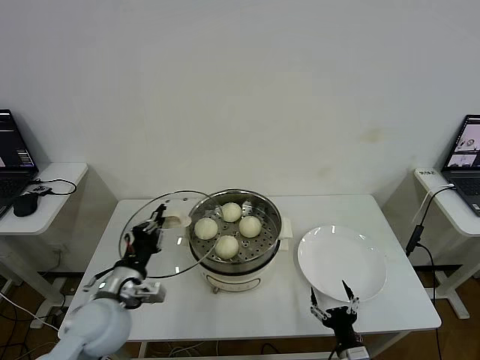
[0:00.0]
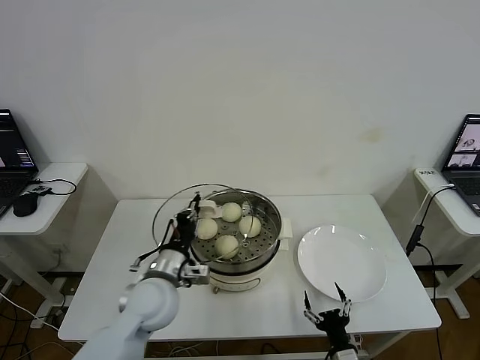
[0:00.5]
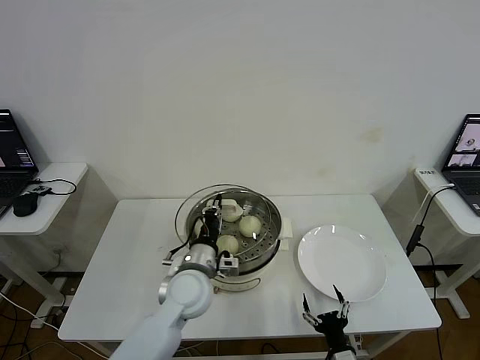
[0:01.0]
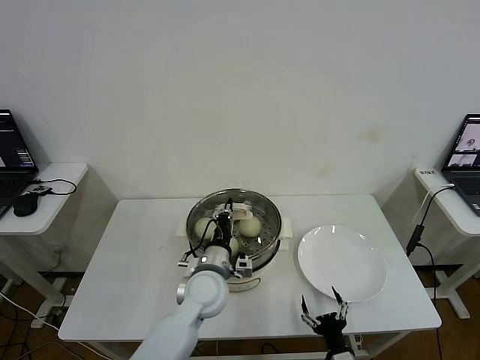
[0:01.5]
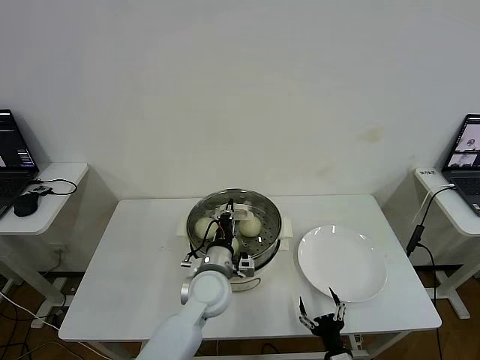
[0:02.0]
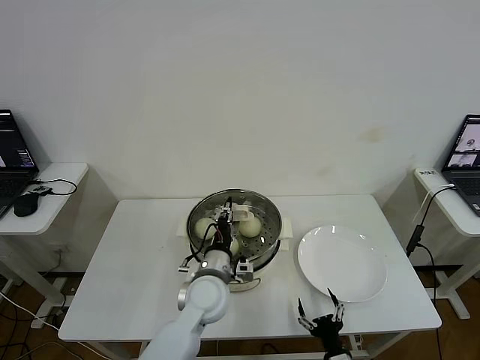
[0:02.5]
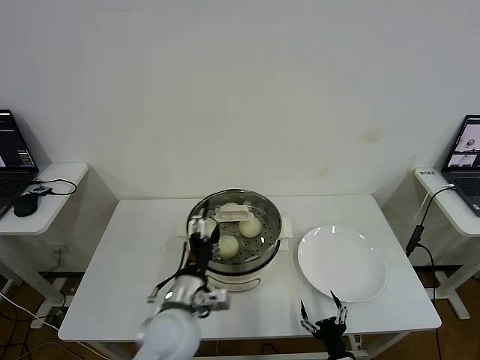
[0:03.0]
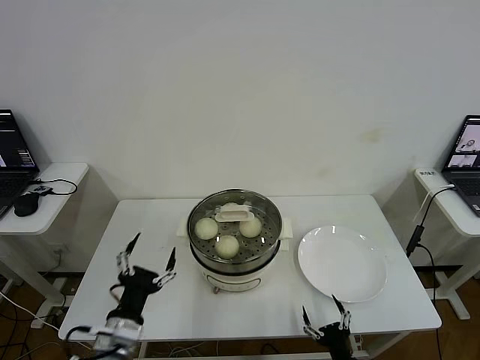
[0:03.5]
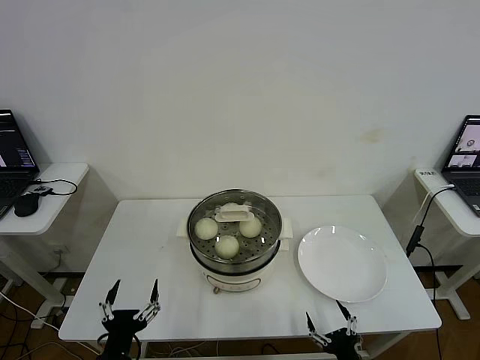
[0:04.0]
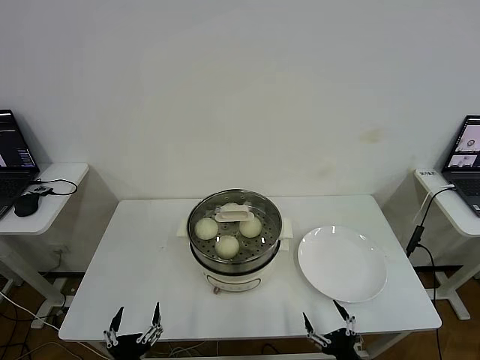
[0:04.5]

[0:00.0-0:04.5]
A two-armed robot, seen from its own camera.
Step, 0:00.0 to 0:02.5: Place the pot lid on the steamer with left gripper.
0:00.0 to 0:02.0: The left gripper moves to the right and forward, about 20 cm.
0:02.0 to 0:04.5: The left gripper travels backward and to the left by approximately 30 cm, and opens up. The right gripper goes approximately 5 cm upward.

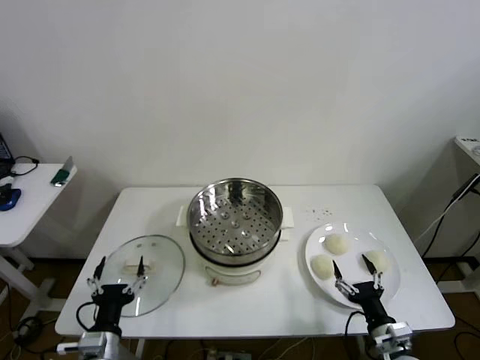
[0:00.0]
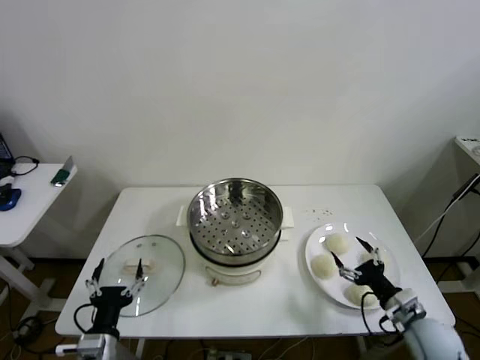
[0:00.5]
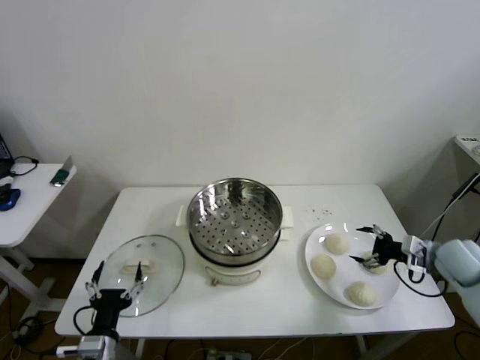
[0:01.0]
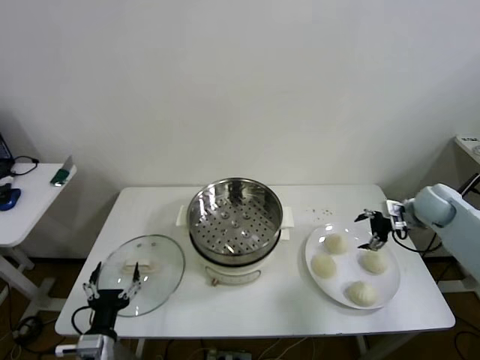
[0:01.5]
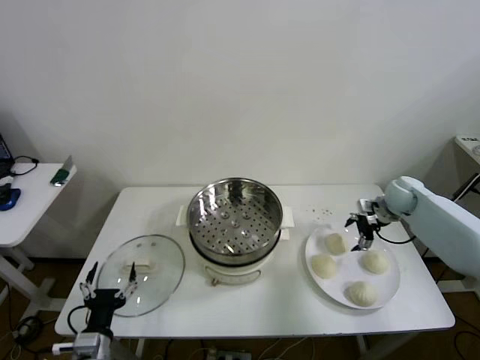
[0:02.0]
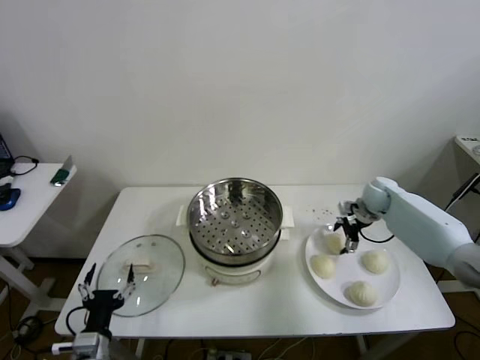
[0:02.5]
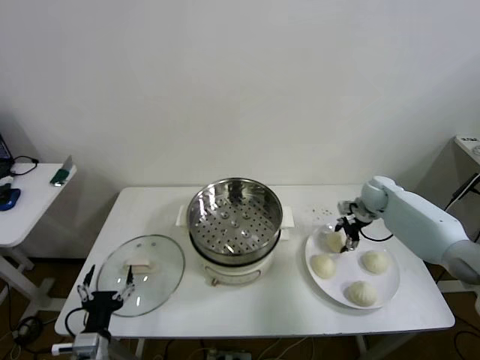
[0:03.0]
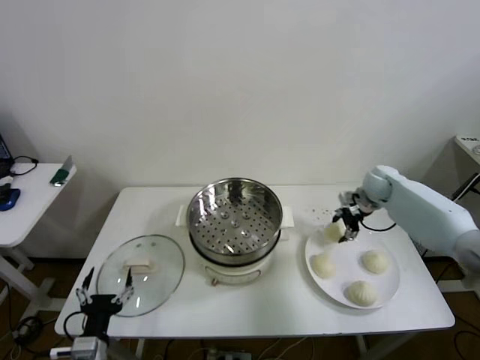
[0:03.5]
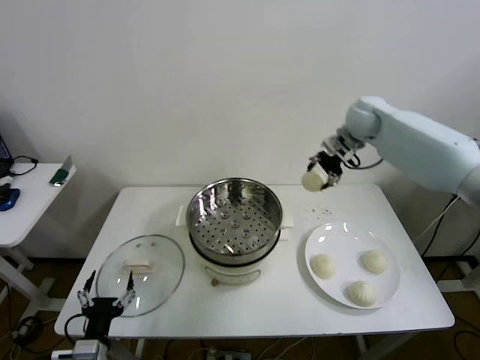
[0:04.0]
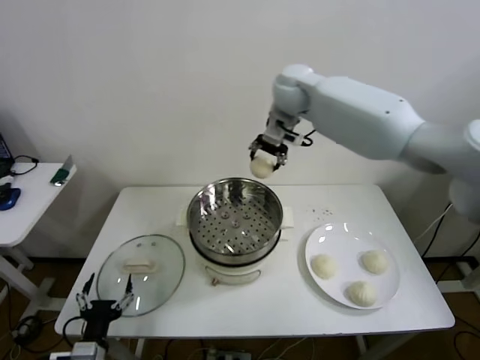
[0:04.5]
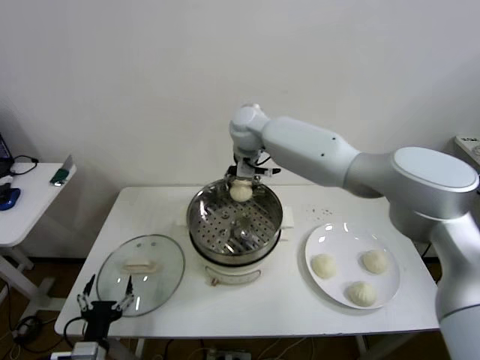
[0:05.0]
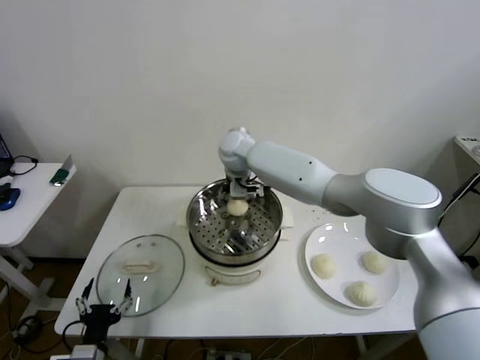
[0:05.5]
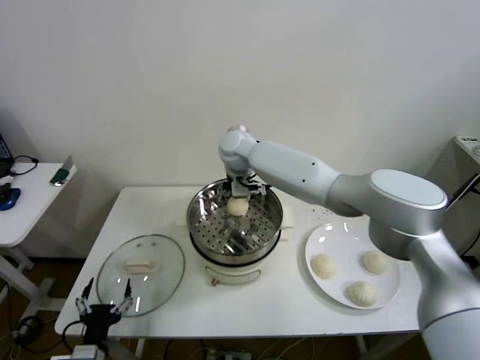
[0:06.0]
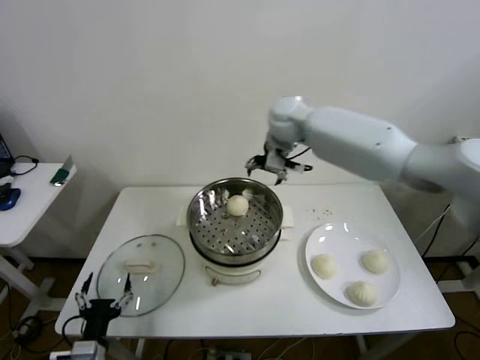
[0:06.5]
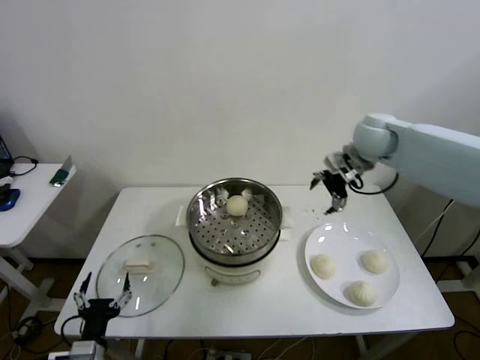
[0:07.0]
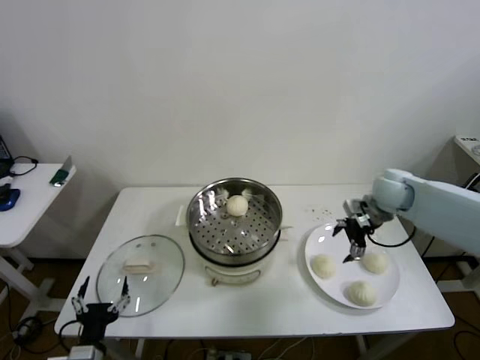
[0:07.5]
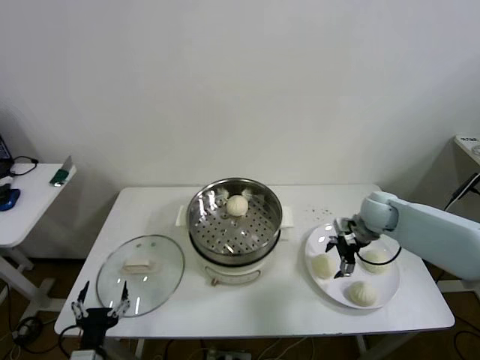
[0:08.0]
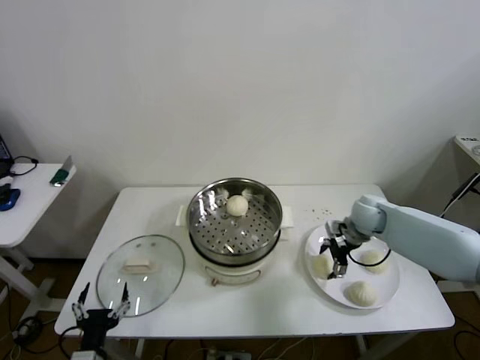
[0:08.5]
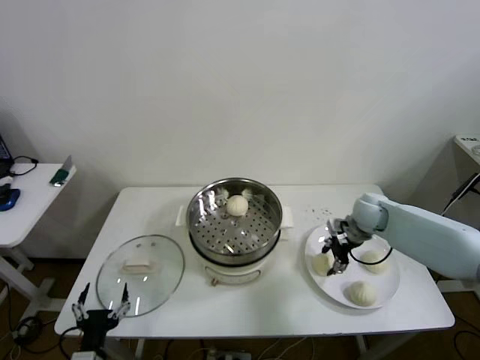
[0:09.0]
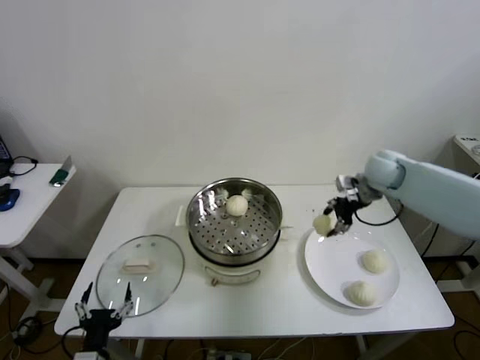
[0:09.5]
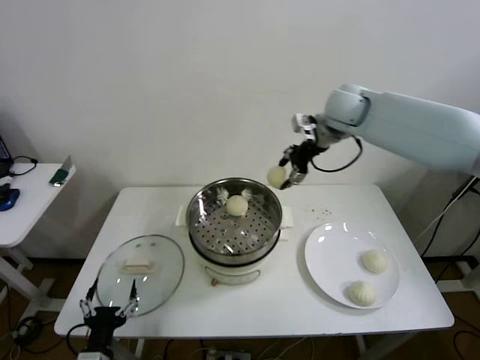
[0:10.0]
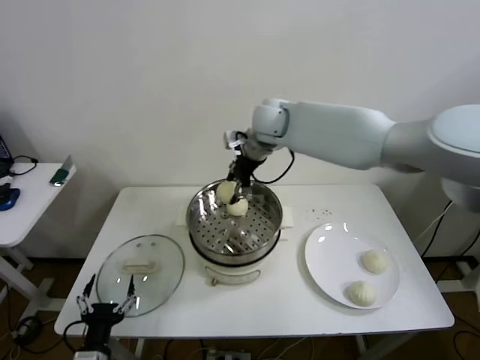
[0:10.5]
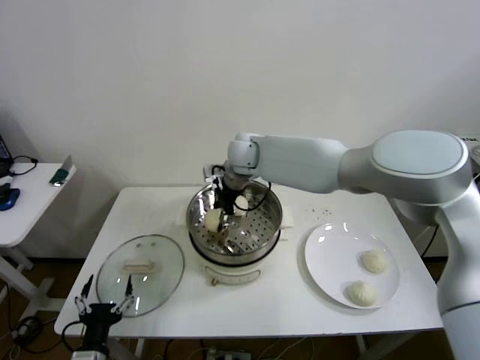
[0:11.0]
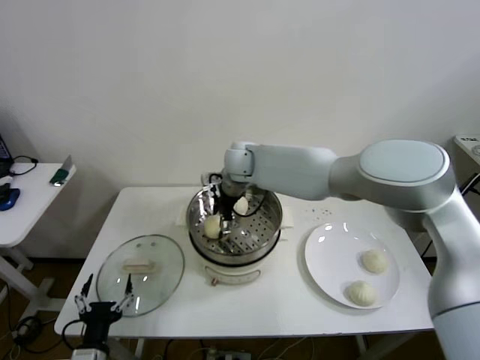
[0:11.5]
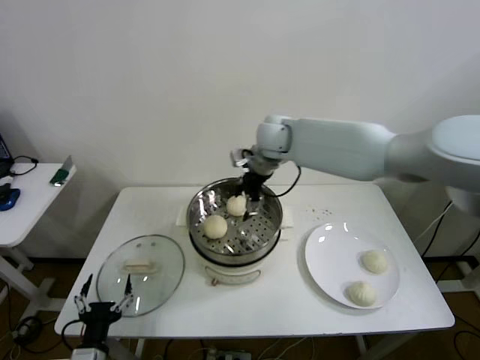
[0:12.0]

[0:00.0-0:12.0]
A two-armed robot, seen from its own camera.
Step, 0:00.0 to 0:03.0: Grasp the baozi in the plate with right gripper.
Step, 0:03.5 to 0:06.0: Place the baozi on the steamer with right gripper.
Step, 0:06.5 to 0:08.5: Grasp the baozi in the plate with right gripper.
Step, 0:09.5 to 0:11.5: Place the baozi on the steamer with right gripper.
0:02.0 to 0:04.0: The right gripper moves upward and to the left, roughly 25 cm, and closes.
0:04.0 to 0:06.0: The right gripper heads to the left, covering roughly 30 cm, and opens its fingers.
0:06.0 to 0:08.0: The right gripper heads to the right, covering about 35 cm.
0:08.0 to 0:10.0: The right gripper goes approximately 25 cm upward and to the left, and closes.
0:10.0 to 0:12.0: The right gripper shifts some 15 cm to the left and downward, and opens.

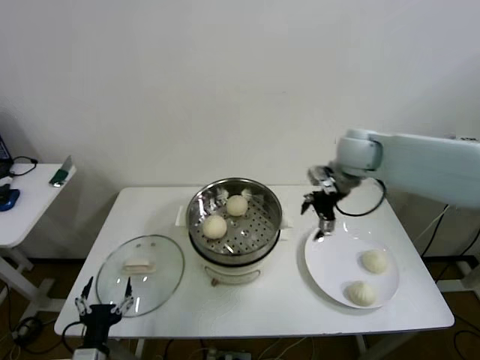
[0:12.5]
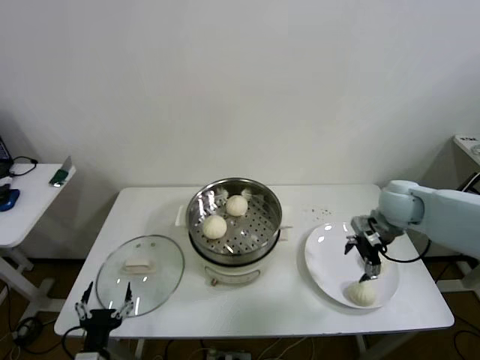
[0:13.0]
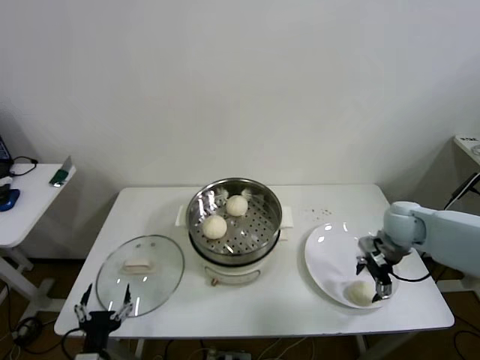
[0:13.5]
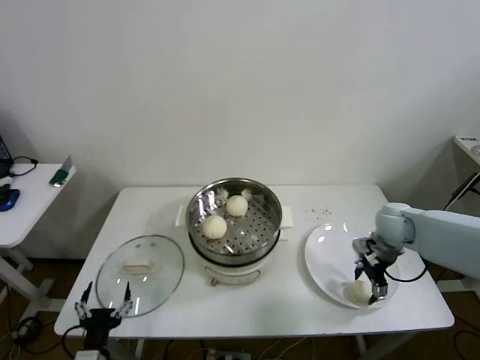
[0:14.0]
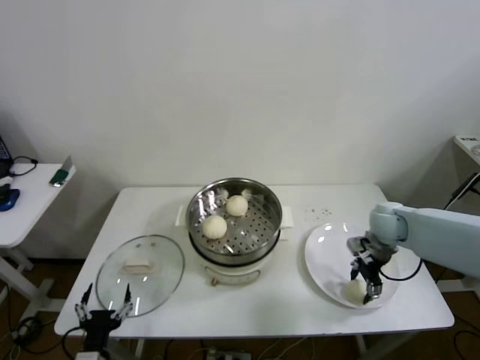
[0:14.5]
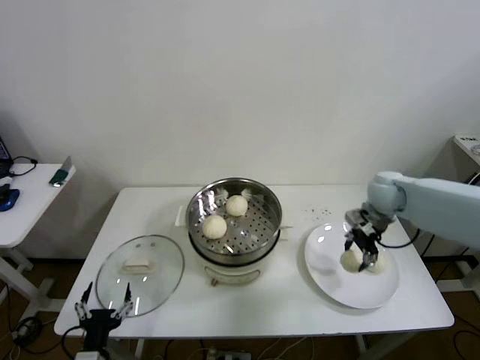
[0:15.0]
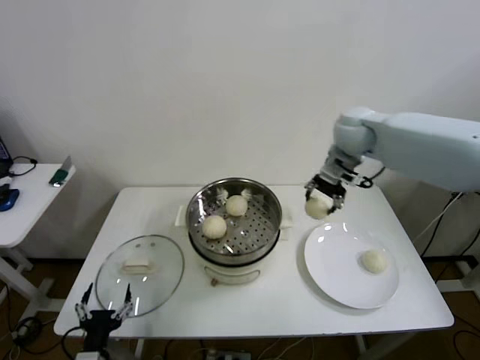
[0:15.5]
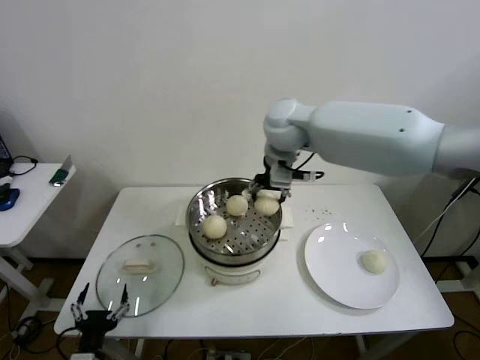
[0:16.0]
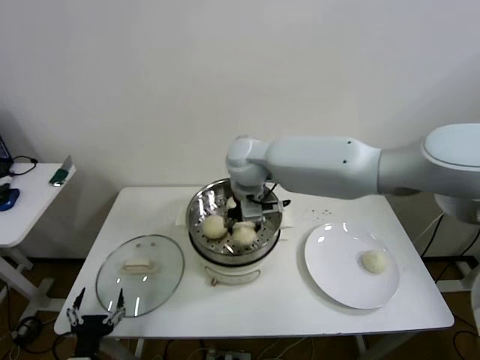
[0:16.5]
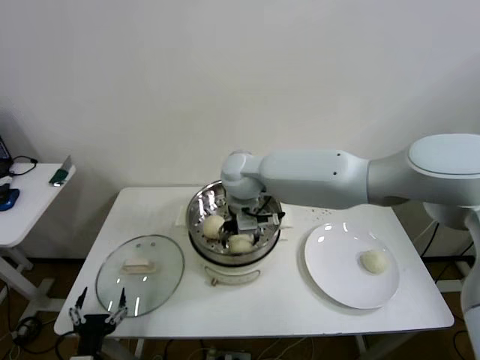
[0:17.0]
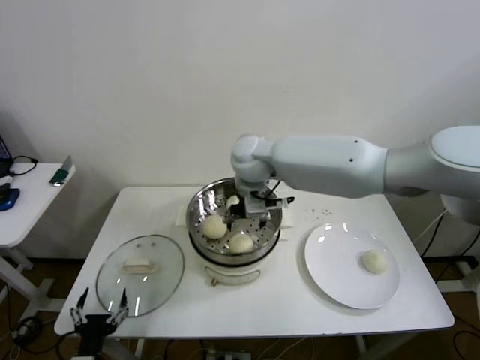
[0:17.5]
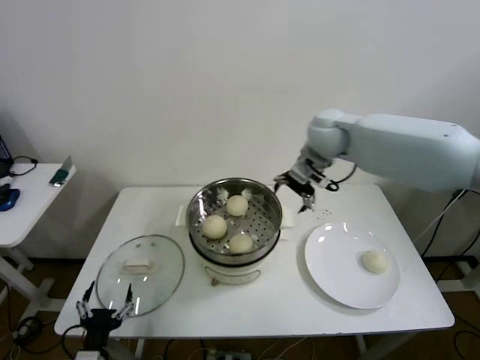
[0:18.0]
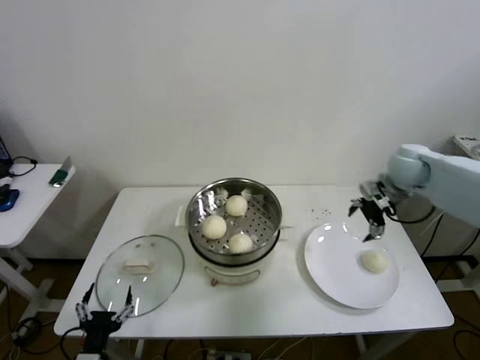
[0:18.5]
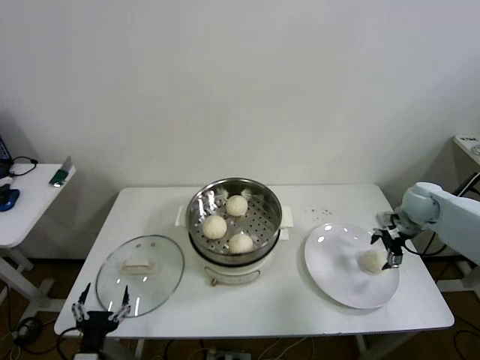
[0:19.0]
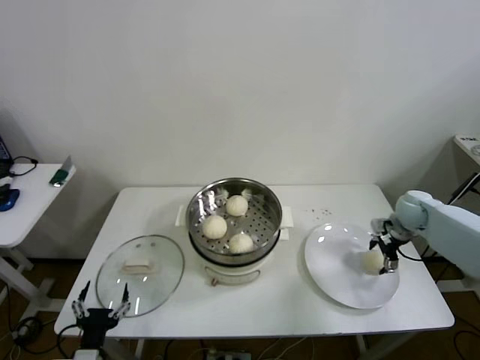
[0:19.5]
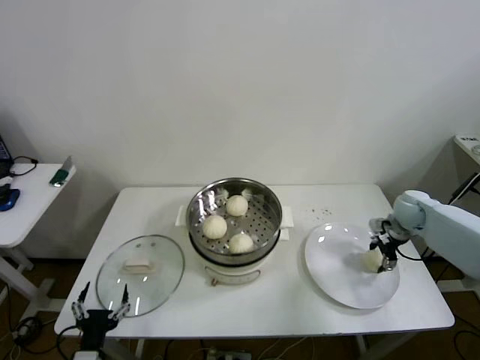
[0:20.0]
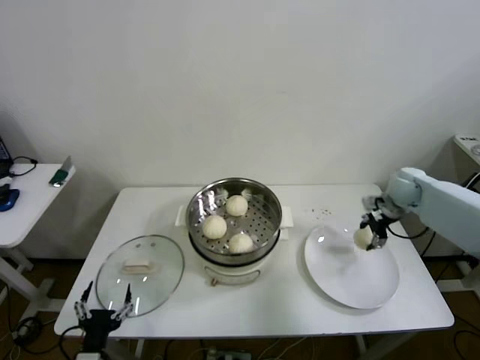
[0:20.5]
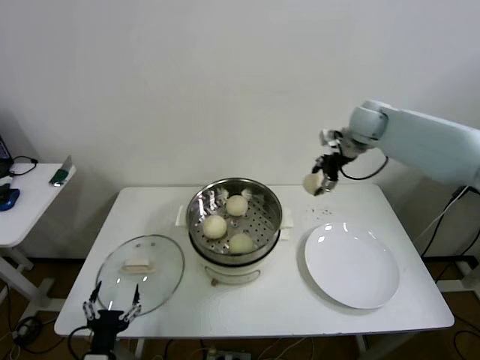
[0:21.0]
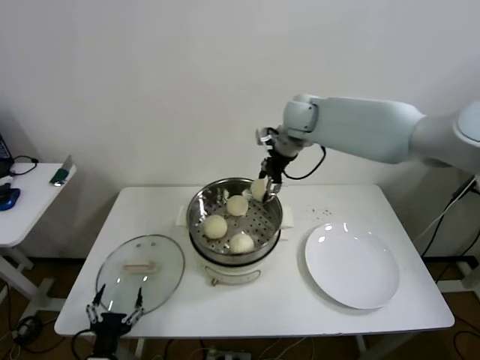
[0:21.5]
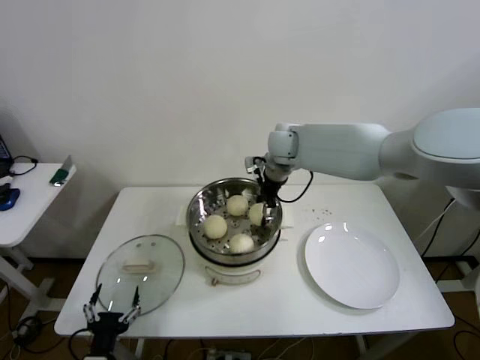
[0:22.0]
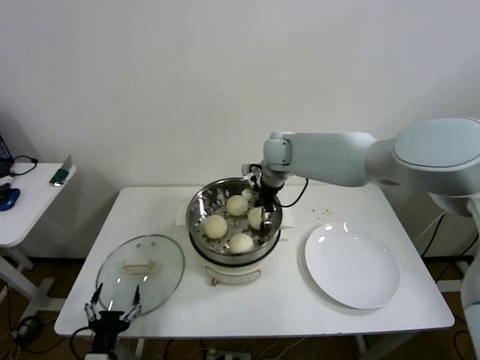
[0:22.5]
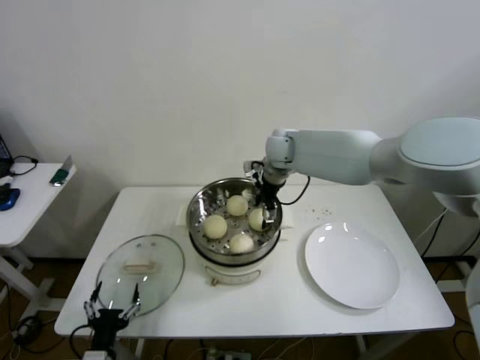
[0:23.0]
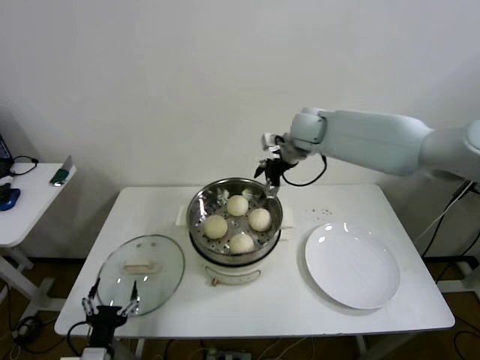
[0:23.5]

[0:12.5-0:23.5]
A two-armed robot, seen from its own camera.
Step, 0:12.5 to 0:14.0: Grasp the baozi in the plate with right gripper.
Step, 0:14.5 to 0:17.0: Place the baozi on the steamer with right gripper.
Step, 0:17.5 to 0:19.5: Grasp the baozi in the plate with right gripper.
Step, 0:20.5 to 0:23.0: Place the baozi on the steamer with right gripper.
0:12.5 to 0:14.5: The right gripper is displaced downward and to the right by some 20 cm, and closes.
0:14.5 to 0:16.0: The right gripper moves to the left and upward, about 35 cm.
0:16.0 to 0:18.0: The right gripper goes approximately 10 cm to the right, and opens its fingers.
0:18.0 to 0:20.0: The right gripper moves to the right and downward, about 35 cm, and closes.
0:20.0 to 0:21.5: The right gripper is displaced to the left and upward by about 40 cm.
0:21.5 to 0:23.5: The right gripper opens up.
